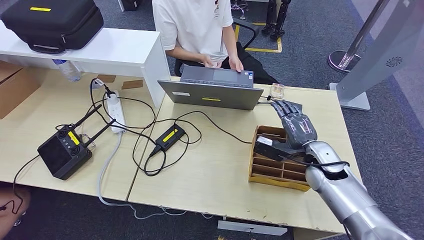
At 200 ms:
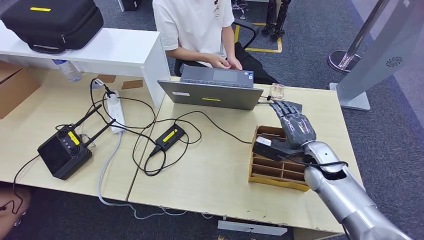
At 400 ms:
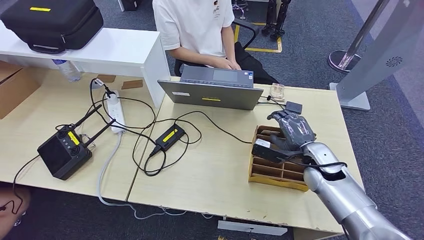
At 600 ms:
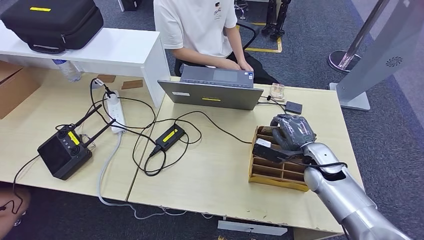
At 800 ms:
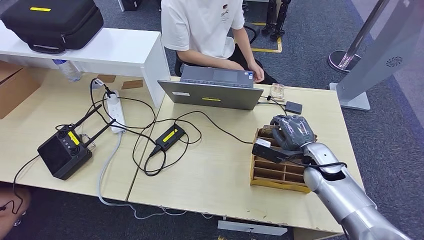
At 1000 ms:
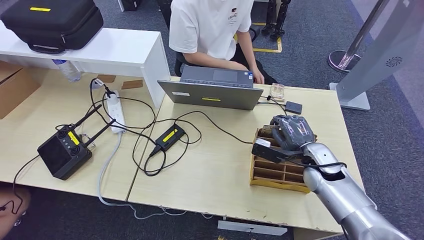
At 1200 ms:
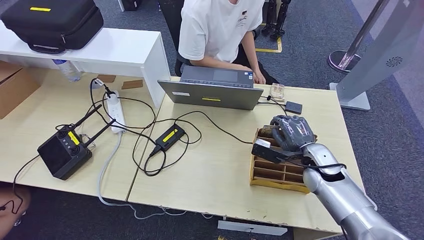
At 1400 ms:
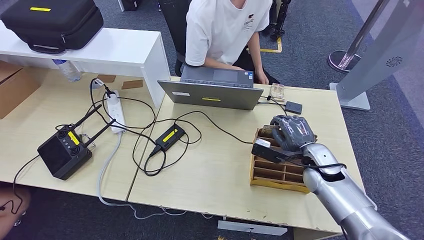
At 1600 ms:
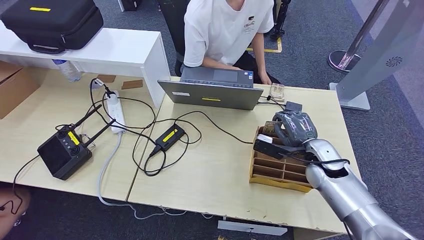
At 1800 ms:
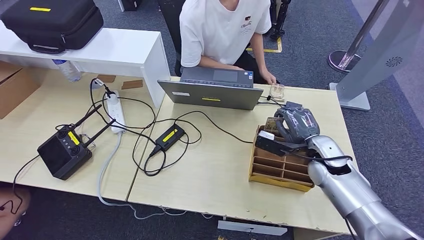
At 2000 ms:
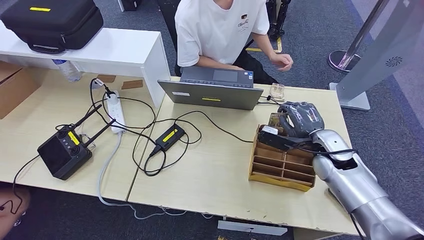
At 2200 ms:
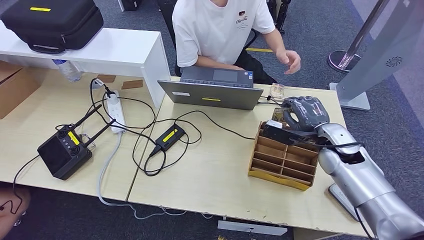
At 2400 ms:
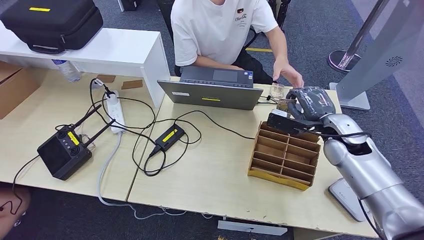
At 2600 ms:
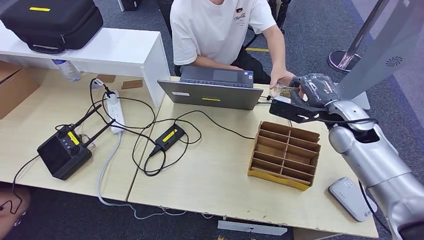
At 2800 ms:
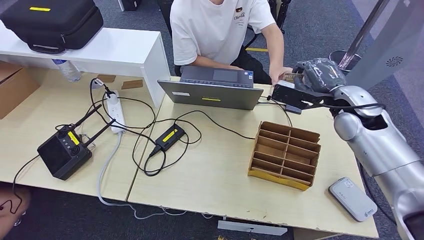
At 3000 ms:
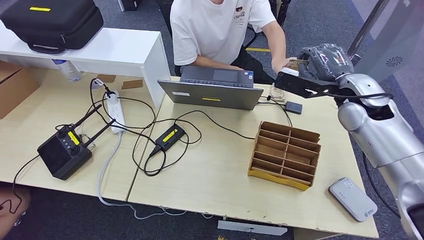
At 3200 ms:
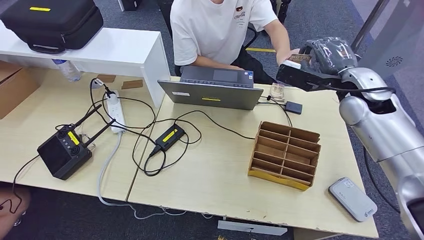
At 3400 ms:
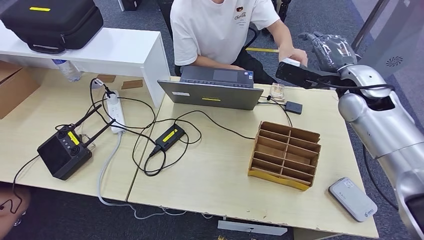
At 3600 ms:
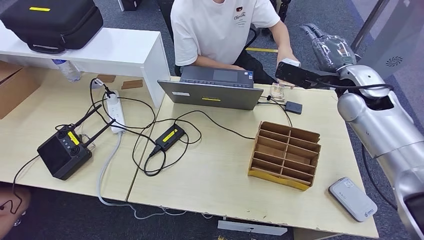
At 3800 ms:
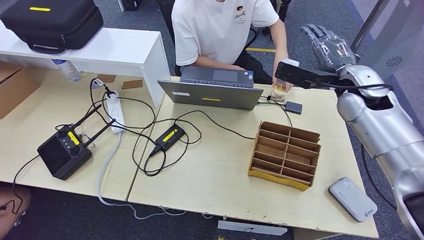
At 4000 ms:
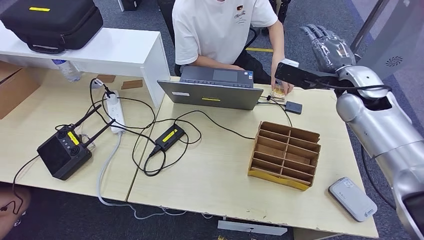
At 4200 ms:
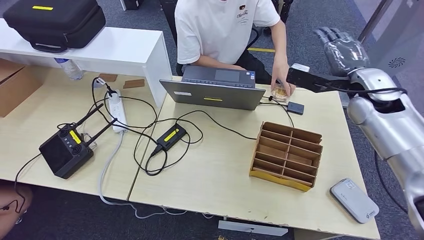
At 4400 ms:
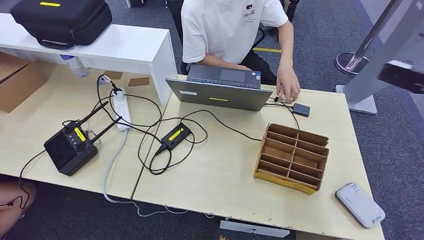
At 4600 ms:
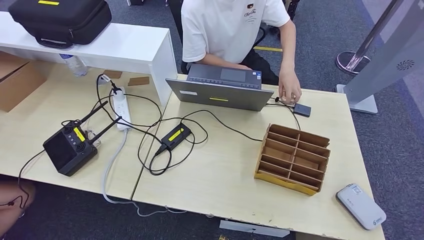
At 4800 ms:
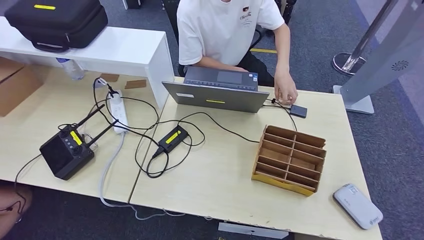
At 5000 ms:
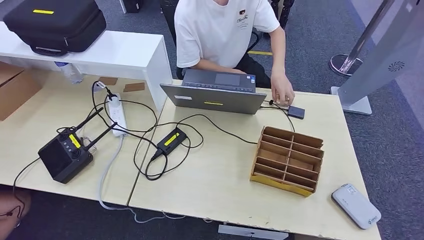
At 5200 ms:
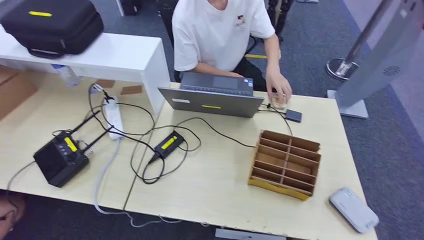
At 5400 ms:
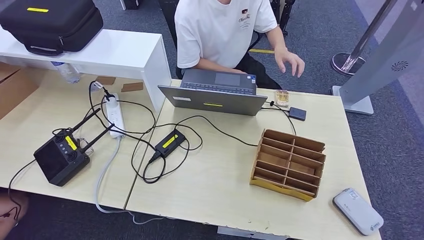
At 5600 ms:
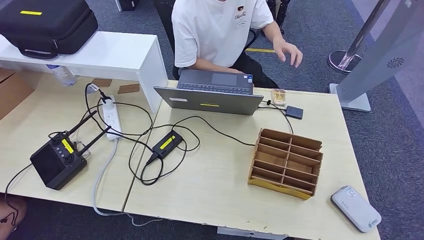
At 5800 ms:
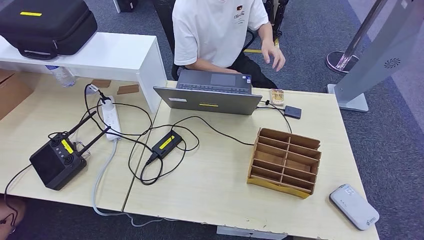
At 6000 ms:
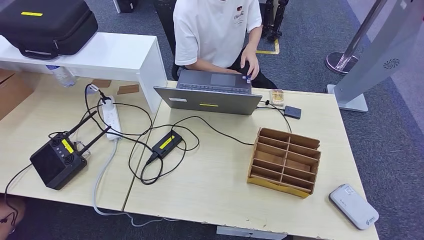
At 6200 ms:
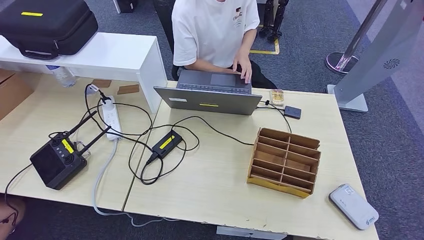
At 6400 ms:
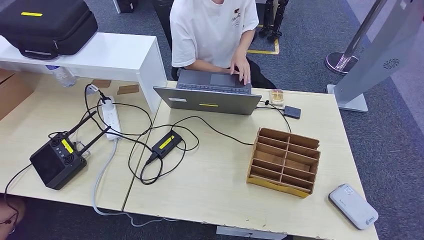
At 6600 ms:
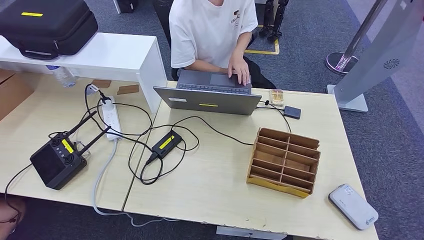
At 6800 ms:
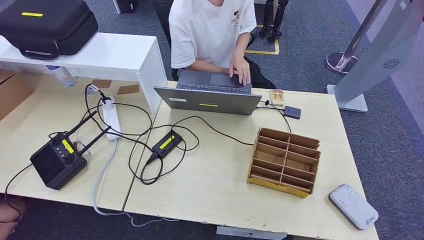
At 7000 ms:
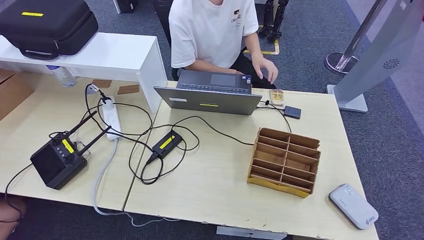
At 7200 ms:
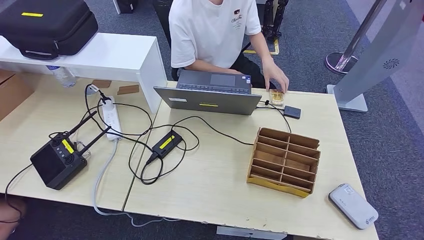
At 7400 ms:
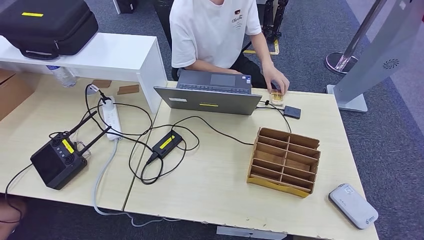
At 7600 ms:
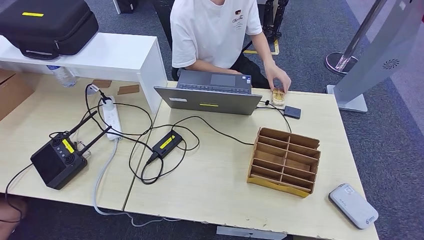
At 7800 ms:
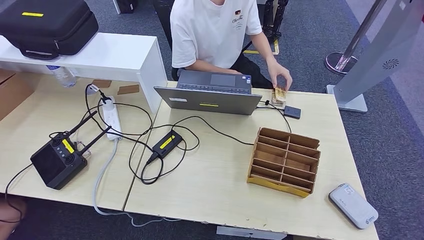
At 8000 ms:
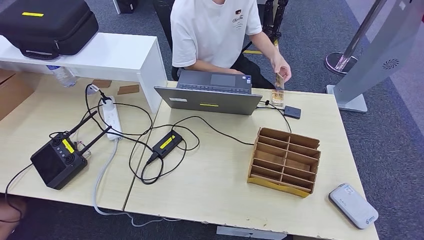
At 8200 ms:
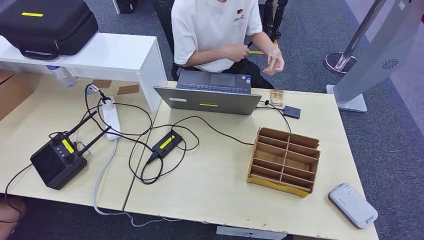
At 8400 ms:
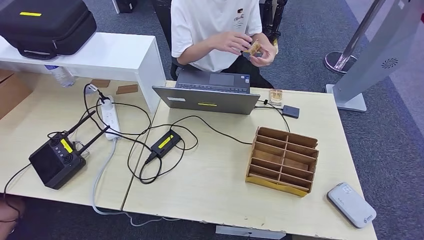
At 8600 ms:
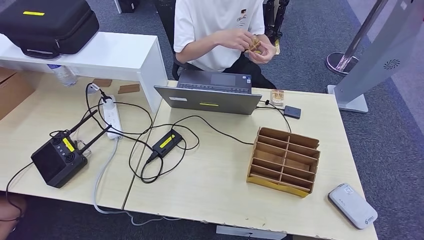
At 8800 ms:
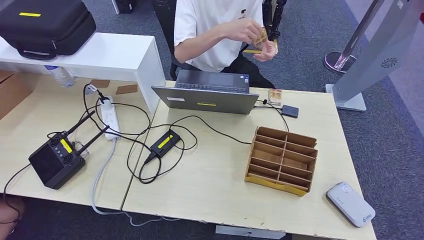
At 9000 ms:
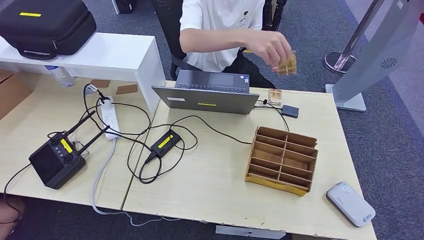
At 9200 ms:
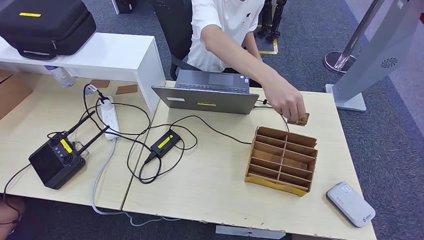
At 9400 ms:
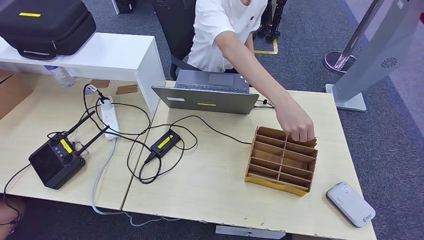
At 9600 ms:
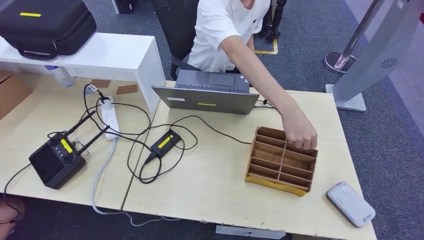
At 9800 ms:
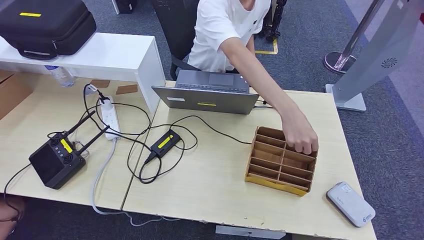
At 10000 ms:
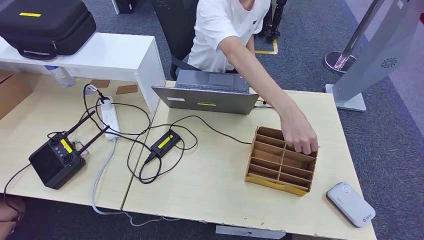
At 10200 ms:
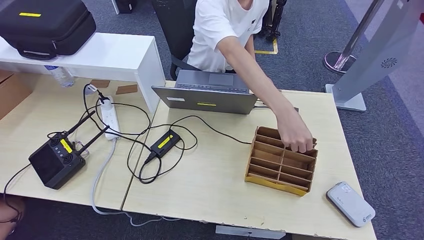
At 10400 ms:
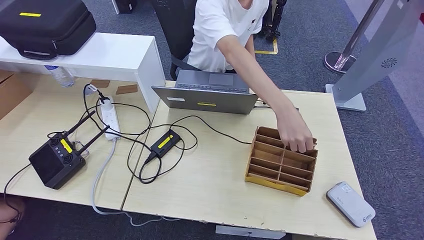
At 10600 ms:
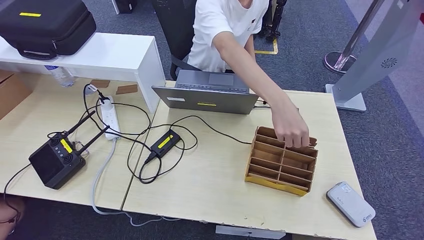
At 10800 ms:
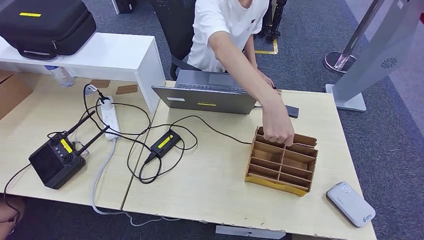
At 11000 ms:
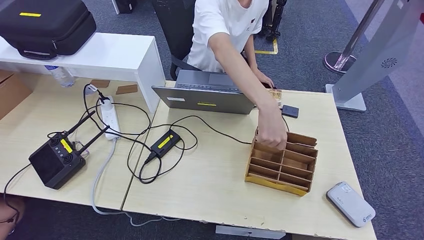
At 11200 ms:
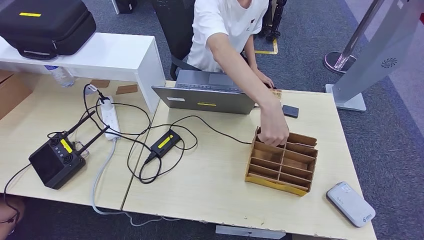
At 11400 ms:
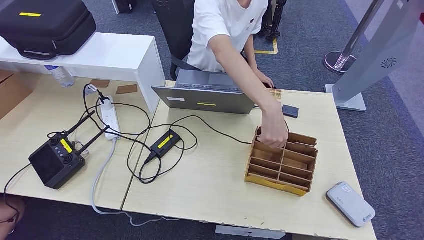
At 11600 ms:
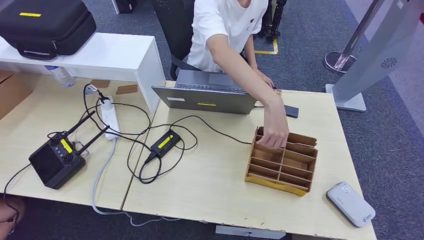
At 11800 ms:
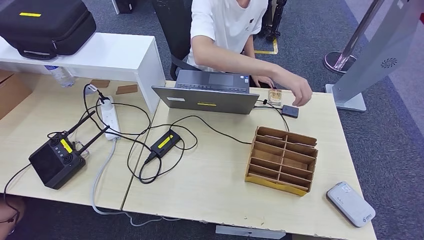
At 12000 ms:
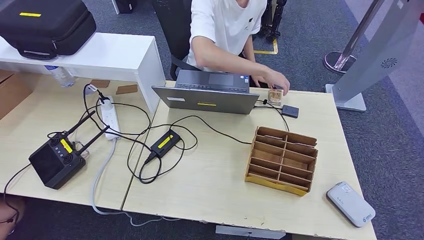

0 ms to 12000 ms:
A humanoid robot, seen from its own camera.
0 ms to 1600 ms: Both hands stay about where they are.
6000 ms to 7600 ms: The right hand goes about 35 cm to the left.
9000 ms to 10400 ms: There are only small adjustments of the hands.
10400 ms to 12000 ms: The two hands keep their place.

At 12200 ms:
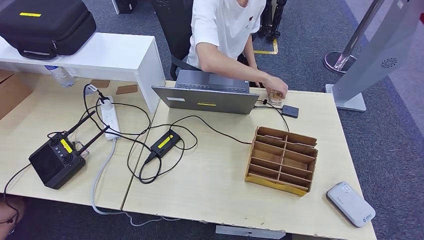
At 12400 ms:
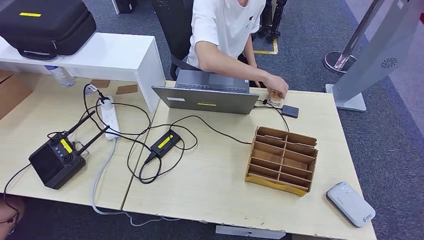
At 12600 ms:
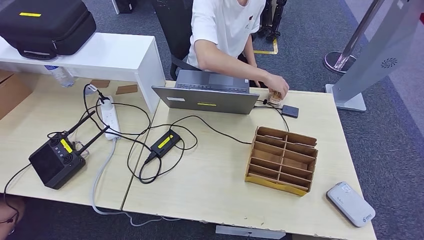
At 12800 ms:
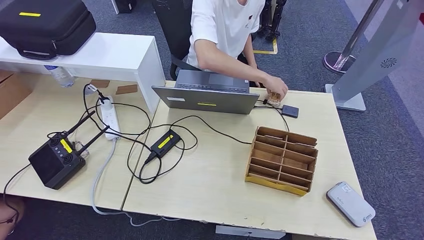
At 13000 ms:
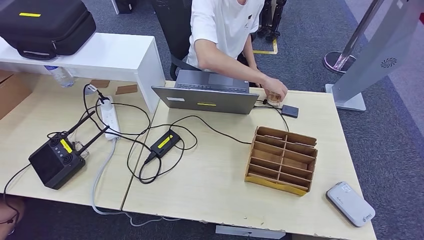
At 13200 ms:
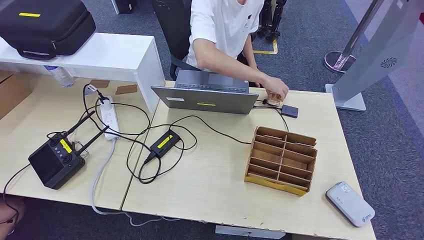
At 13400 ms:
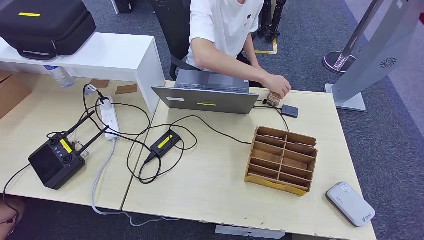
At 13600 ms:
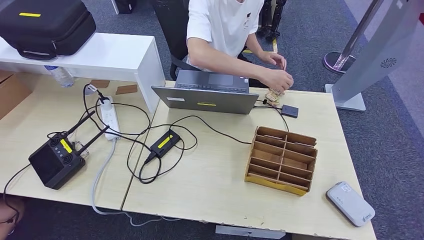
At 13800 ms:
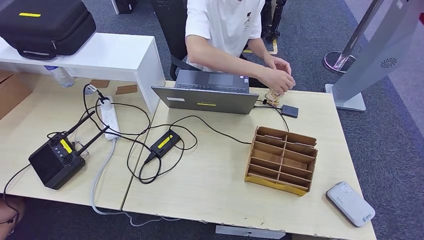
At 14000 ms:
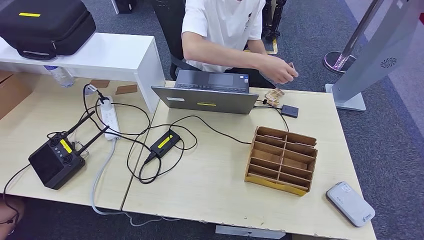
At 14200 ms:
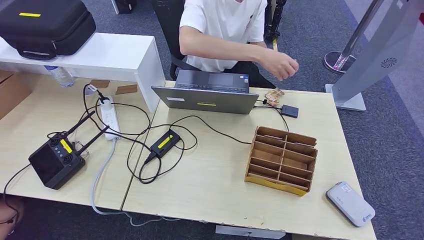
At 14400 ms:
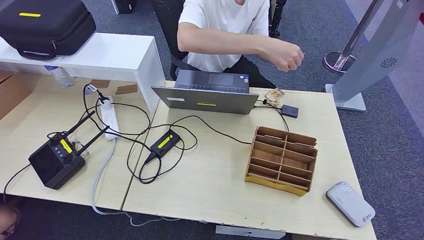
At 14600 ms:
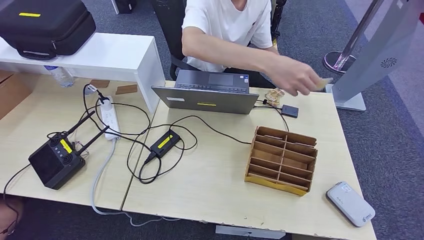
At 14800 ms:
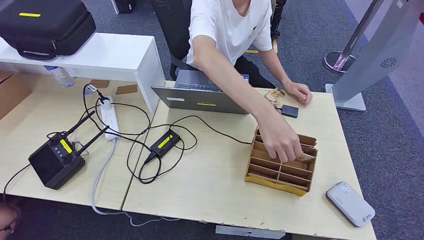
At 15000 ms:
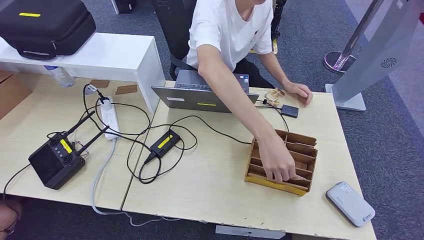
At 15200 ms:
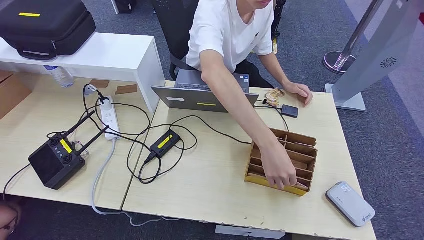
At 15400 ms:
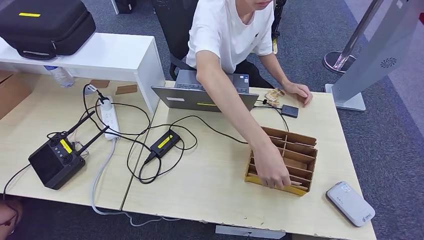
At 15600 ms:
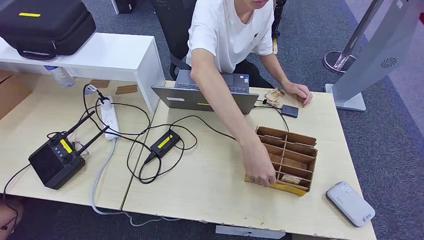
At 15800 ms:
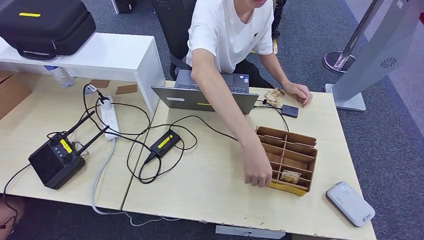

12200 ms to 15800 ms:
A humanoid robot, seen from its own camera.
Step, 12200 ms to 15800 ms: Hand the room key to the person.
12200 ms to 14000 ms: The left hand ends up approximately 5 cm from where it was.

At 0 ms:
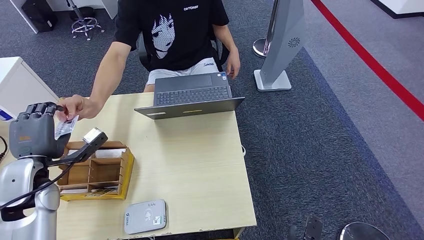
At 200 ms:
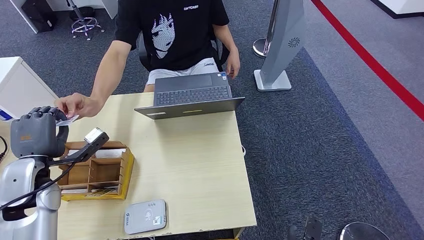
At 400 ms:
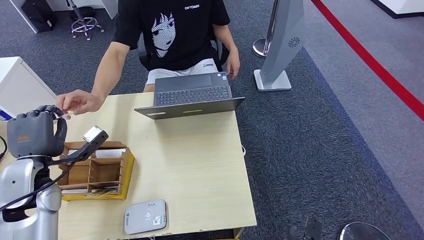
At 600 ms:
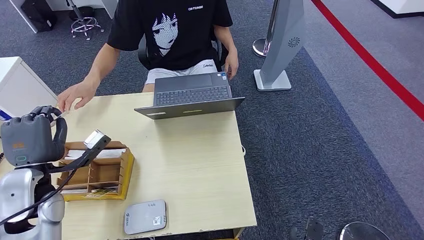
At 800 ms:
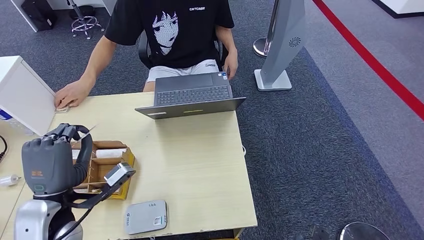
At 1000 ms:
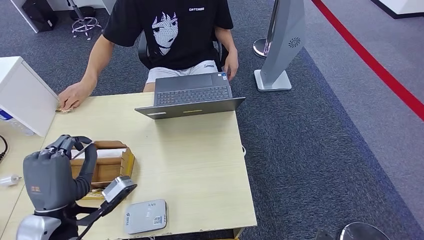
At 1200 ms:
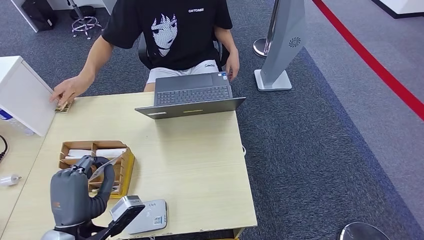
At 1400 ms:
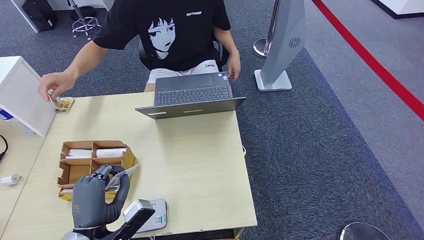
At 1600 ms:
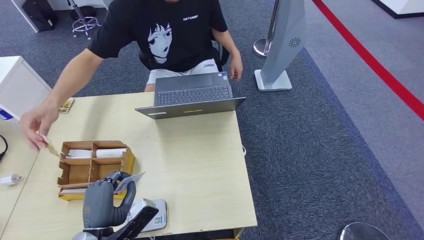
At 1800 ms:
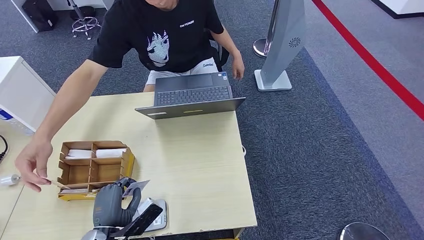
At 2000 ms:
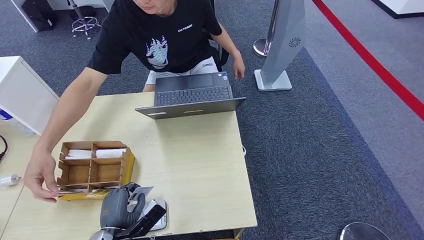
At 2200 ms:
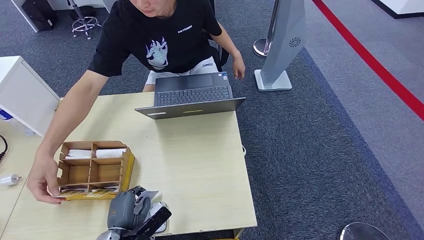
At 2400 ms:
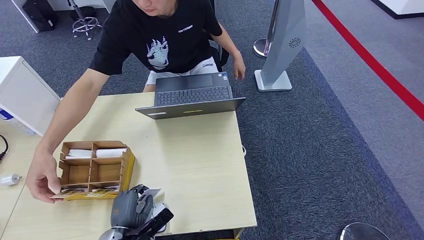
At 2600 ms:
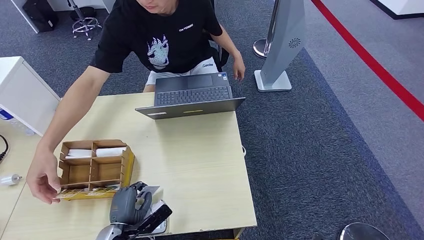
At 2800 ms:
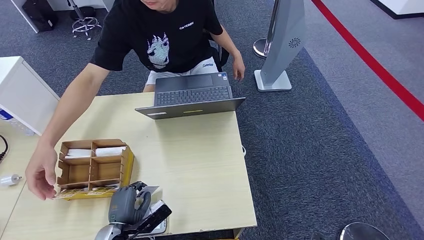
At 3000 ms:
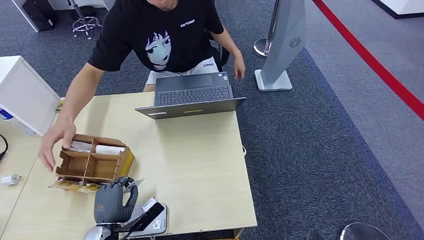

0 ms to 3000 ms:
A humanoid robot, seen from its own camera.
Step, 800 ms to 2000 ms: Place the ID card on the card reader.
0 ms to 1600 ms: The right hand shifts approximately 5 cm backward; the left hand is displaced backward, to the right and downward by some 20 cm.
1600 ms to 3000 ms: The left hand shifts about 10 cm downward.
